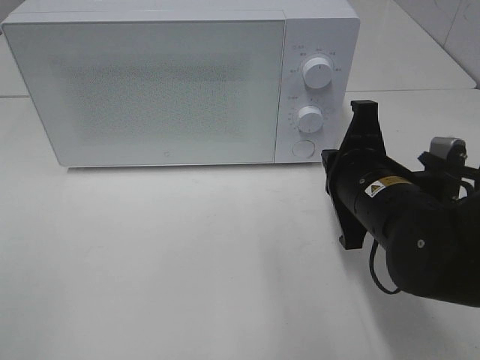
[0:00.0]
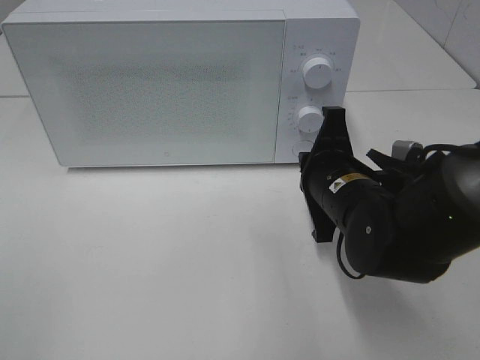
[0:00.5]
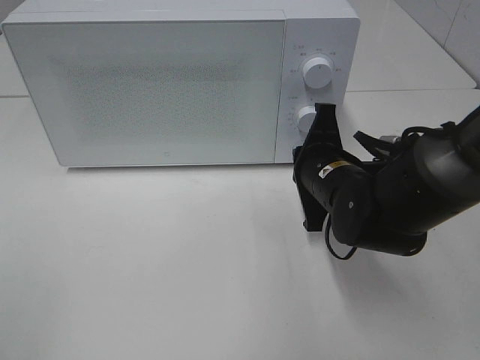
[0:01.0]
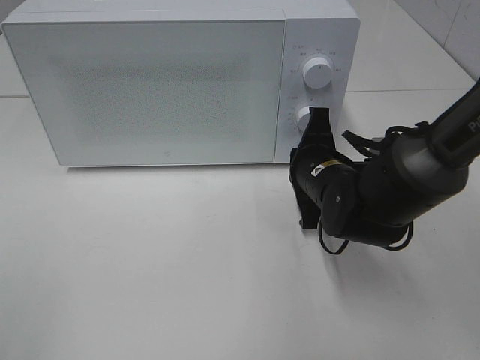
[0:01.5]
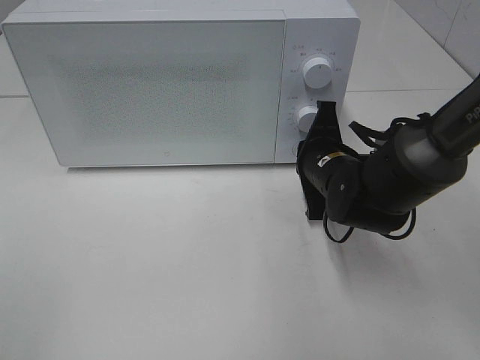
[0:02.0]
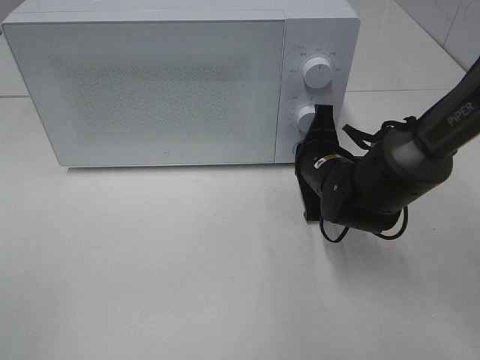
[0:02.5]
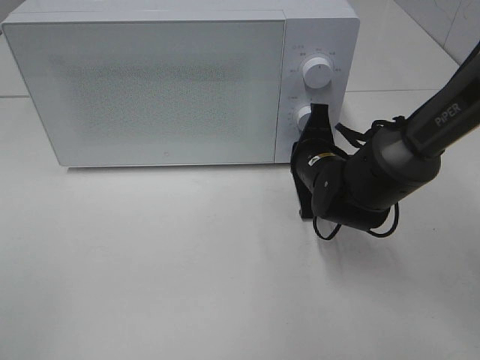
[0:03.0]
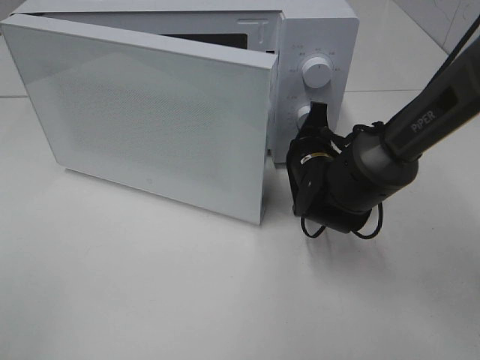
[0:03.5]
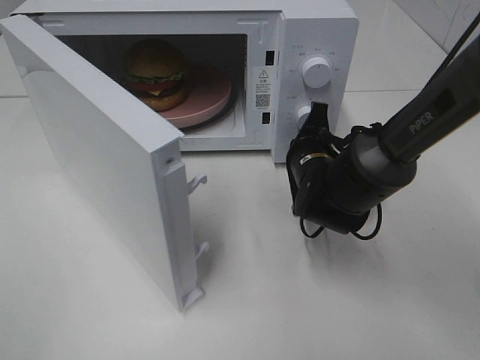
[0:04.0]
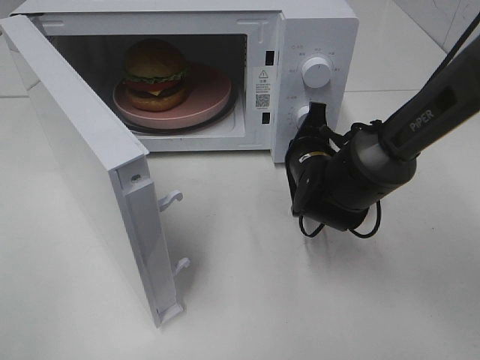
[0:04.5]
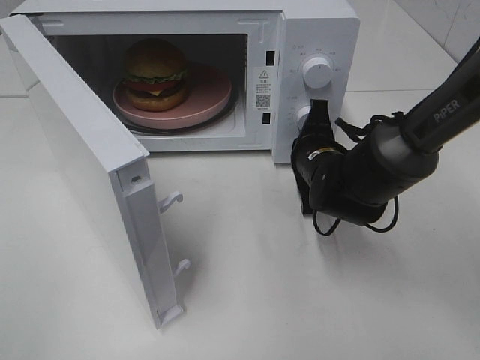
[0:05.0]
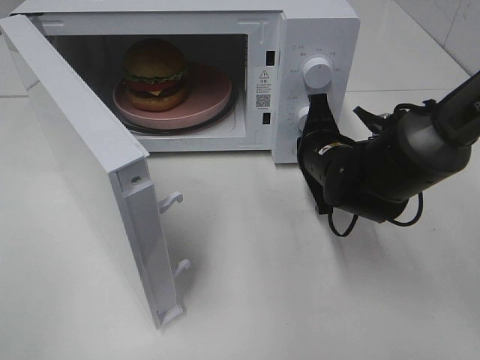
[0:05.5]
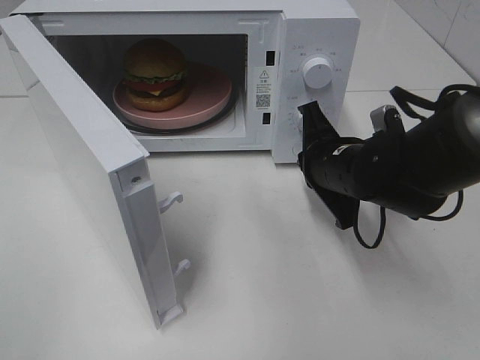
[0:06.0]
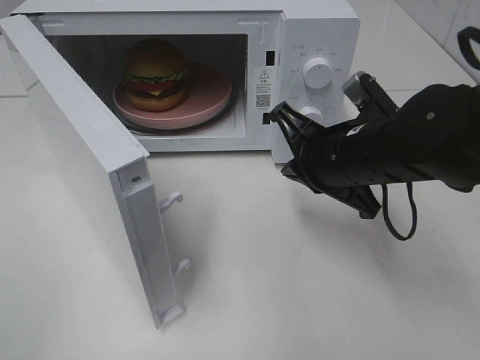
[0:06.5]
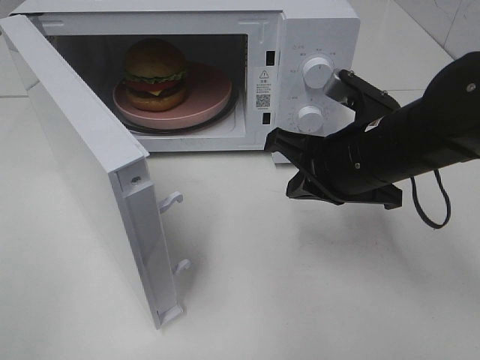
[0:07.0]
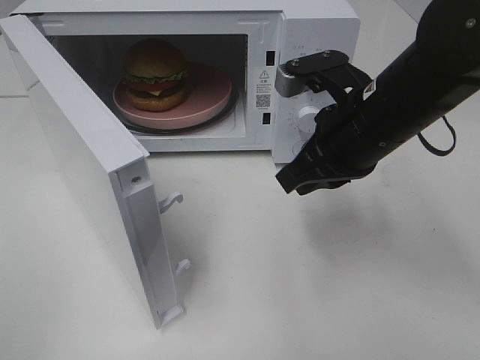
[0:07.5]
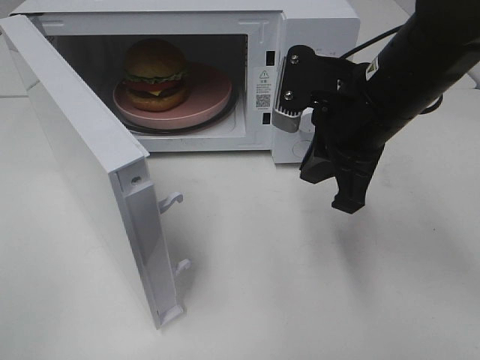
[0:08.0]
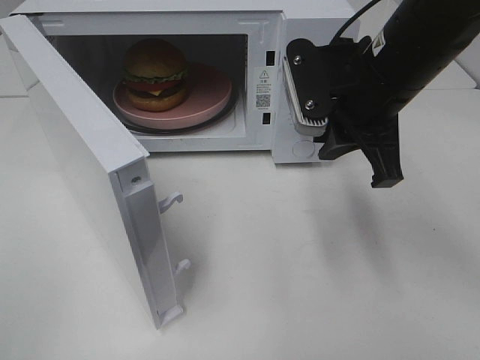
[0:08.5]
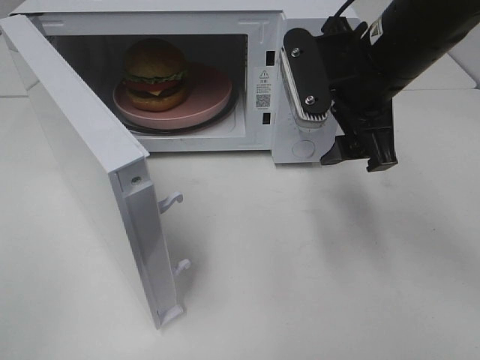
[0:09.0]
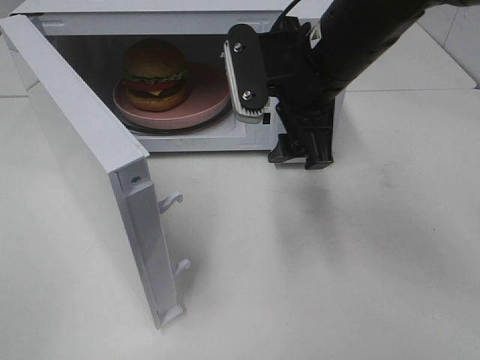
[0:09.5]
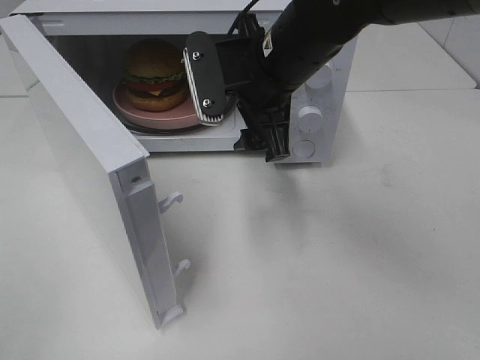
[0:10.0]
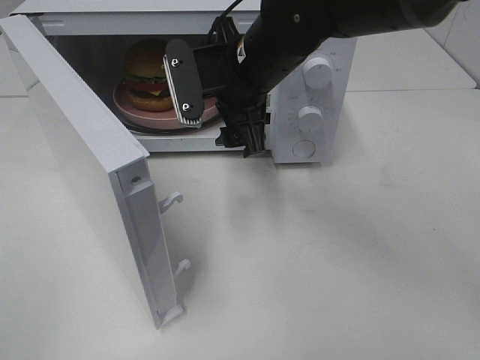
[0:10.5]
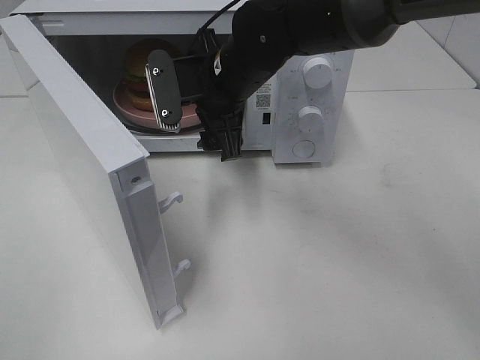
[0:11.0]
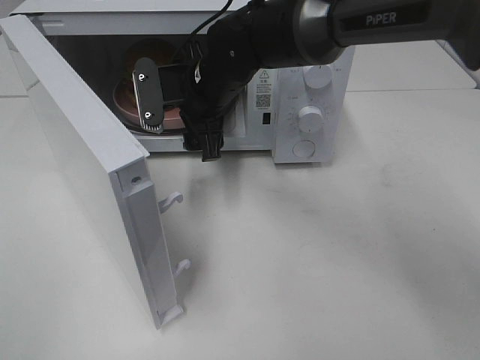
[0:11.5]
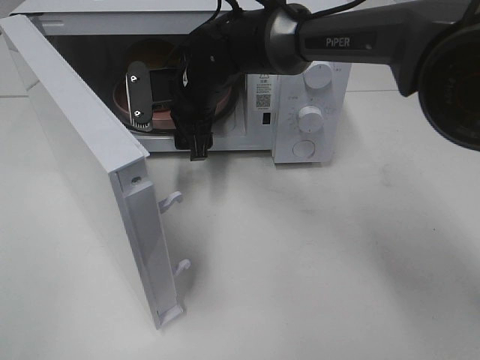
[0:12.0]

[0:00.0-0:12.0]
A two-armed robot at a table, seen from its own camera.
Task of the whole recording: Heat the burger.
Step, 0.0 to 6.0 s: Right hand: press the switch.
0.0 to 2.0 s: The right gripper heads forward and downward, covering some 10 cm.
4.0 to 6.0 s: The right gripper travels backward by approximately 5 cm.
6.0 to 8.0 s: The right gripper shifts some 10 cm upward.
8.0 to 10.0 s: The right gripper is displaced to the left and forward by some 10 cm, and opens.
10.0 to 12.0 s: The right gripper travels forward, to the left and downward by about 15 cm.

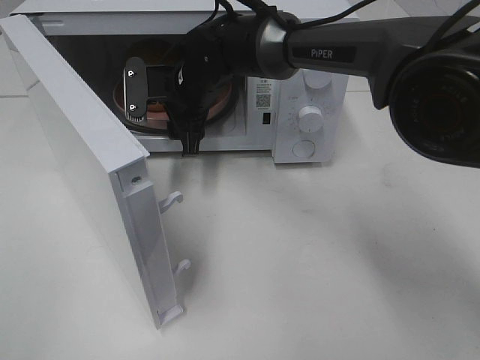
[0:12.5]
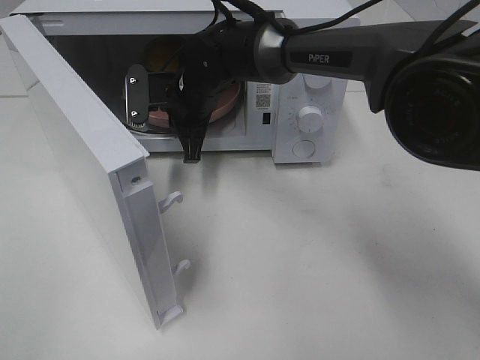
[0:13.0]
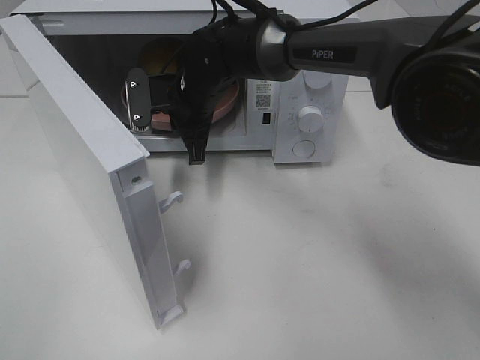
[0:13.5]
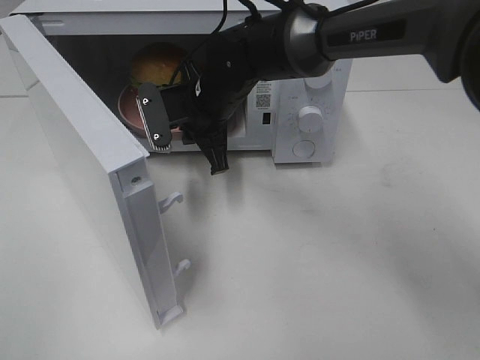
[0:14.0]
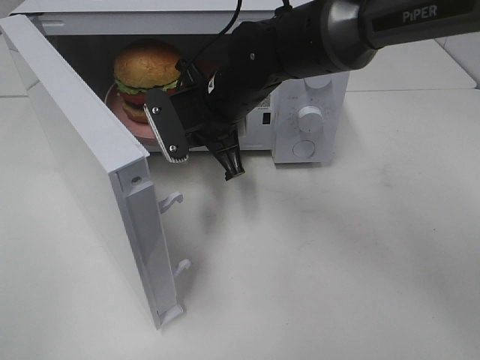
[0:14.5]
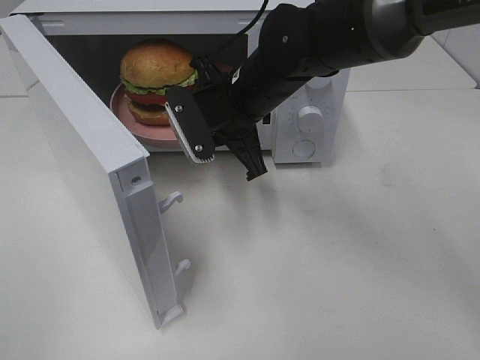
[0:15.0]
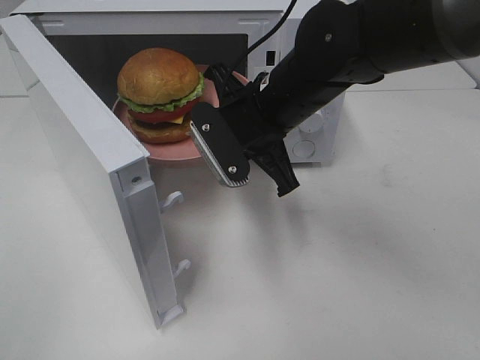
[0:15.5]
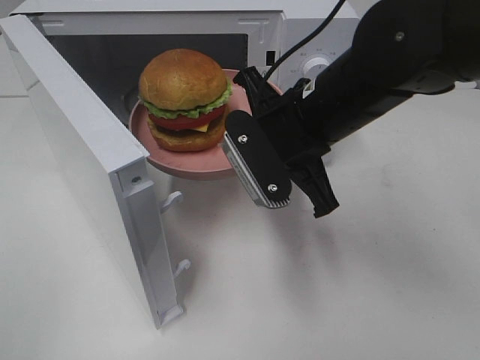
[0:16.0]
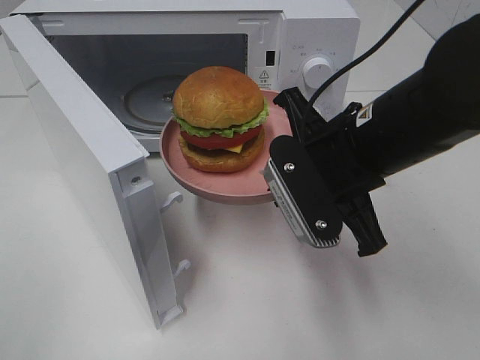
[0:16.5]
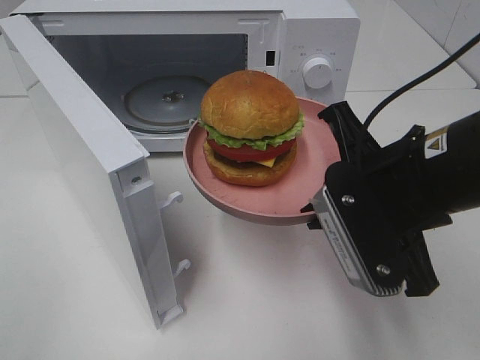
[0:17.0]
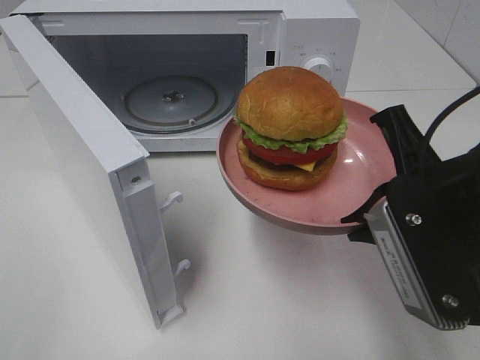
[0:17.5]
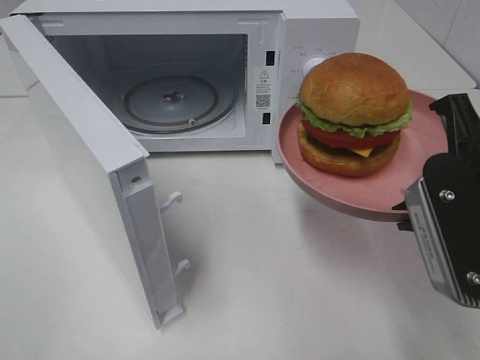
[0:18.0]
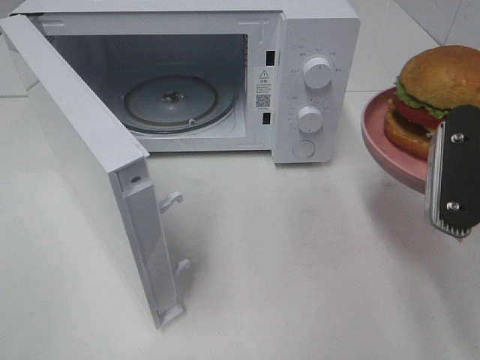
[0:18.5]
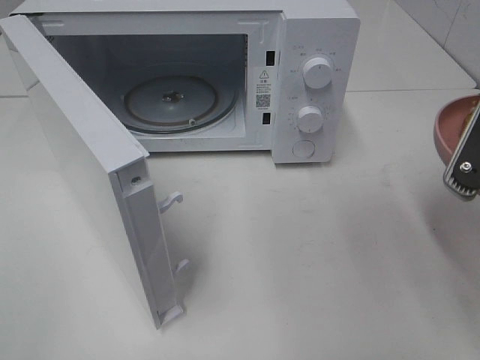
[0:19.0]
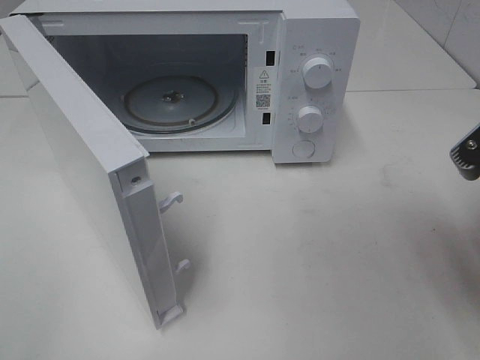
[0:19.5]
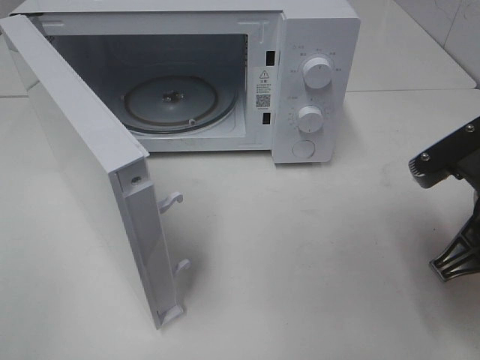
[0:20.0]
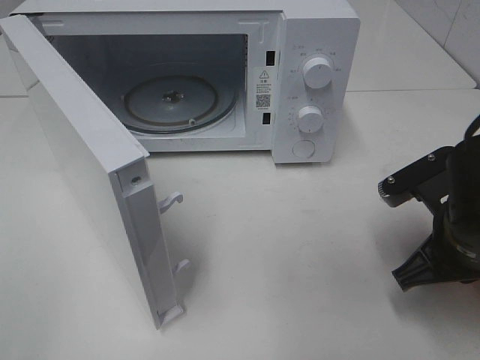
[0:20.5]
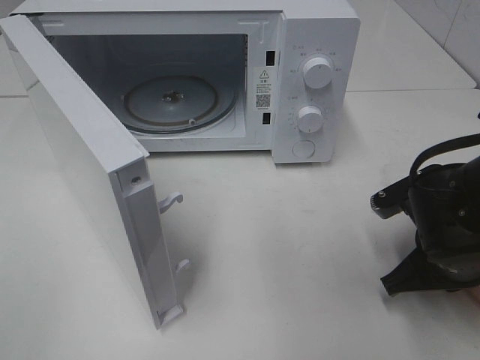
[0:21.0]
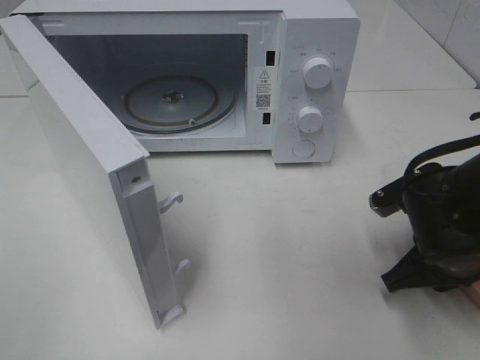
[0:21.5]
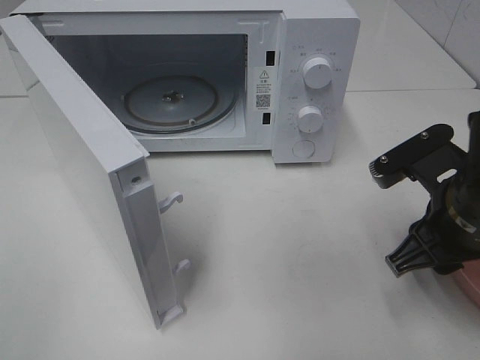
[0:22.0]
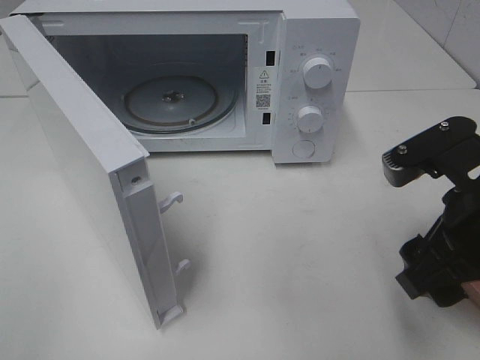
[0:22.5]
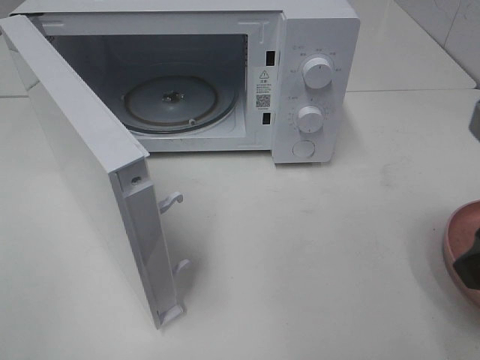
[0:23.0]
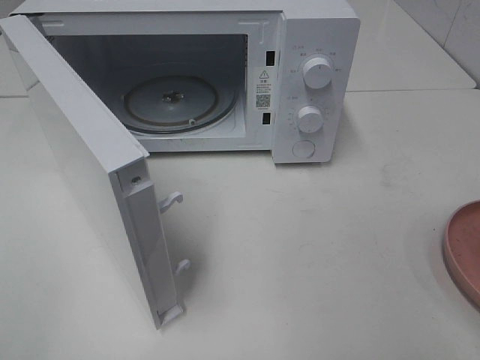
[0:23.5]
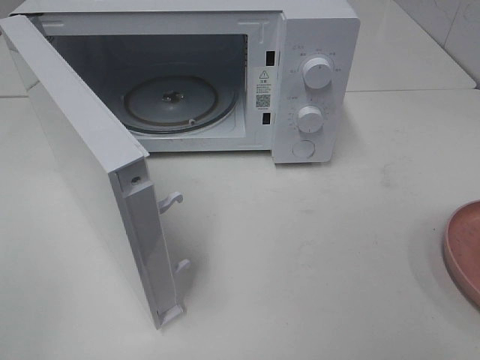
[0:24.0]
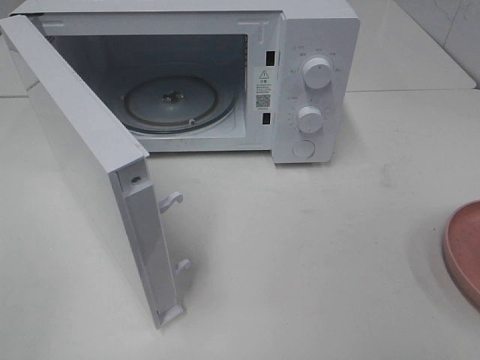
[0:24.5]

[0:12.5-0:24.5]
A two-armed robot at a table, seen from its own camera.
Task of the whole recording: Heat the burger.
Step, 13.5 to 22.0 s: Right hand: place the plate on the table.
12.5 to 14.5 s: The right gripper is displaced backward by approximately 5 cm, and closes up.
14.5 to 16.5 s: The right gripper travels backward and to the right by some 20 cm.
16.5 to 18.5 s: The right gripper travels to the right and backward by approximately 10 cm.
18.5 to 20.5 s: The right gripper is displaced downward by some 10 cm.
20.5 to 22.5 s: The right gripper is displaced upward by approximately 5 cm, and opens.
22.5 to 24.5 s: The right gripper shifts roughly 20 cm backward, to the right and upward.

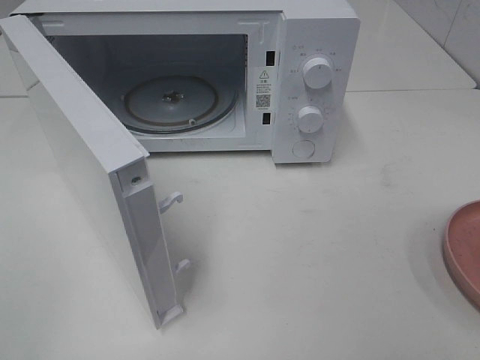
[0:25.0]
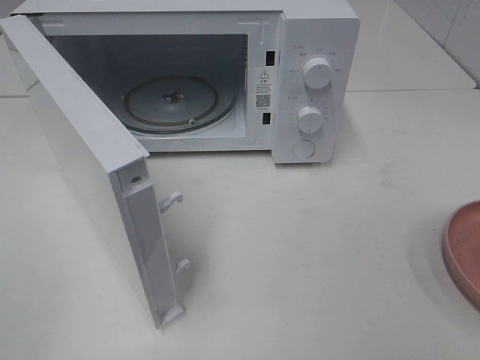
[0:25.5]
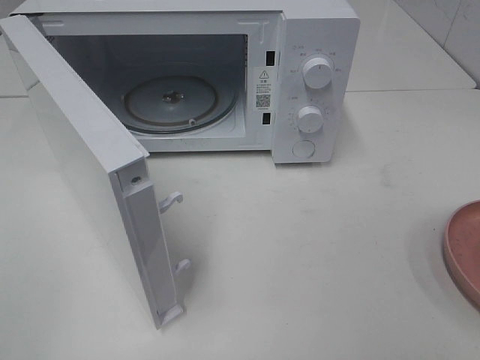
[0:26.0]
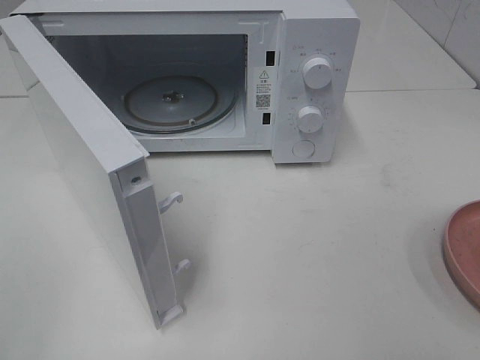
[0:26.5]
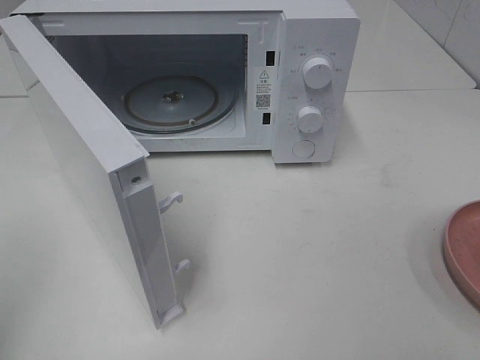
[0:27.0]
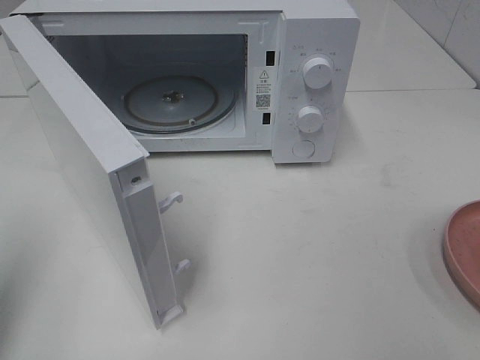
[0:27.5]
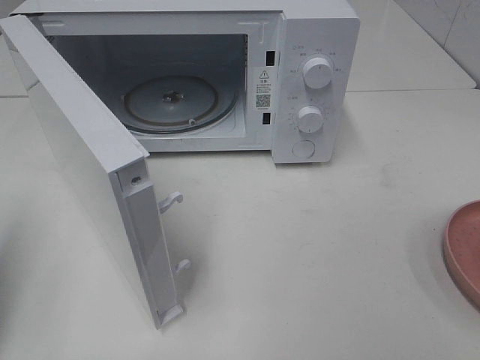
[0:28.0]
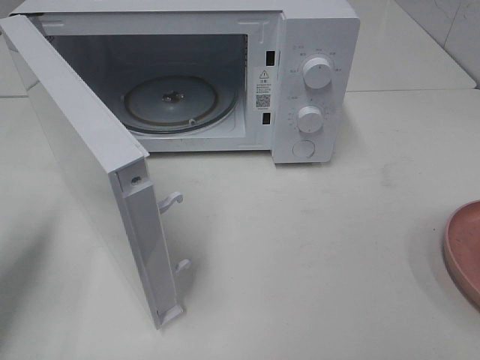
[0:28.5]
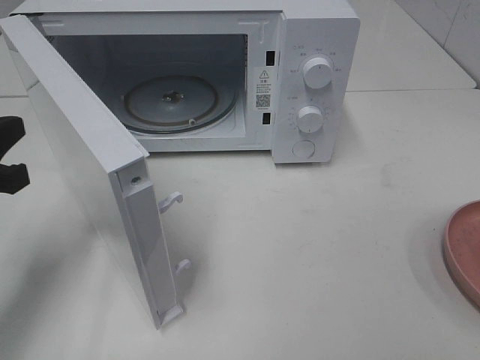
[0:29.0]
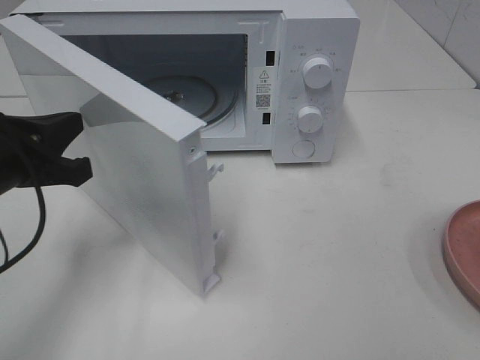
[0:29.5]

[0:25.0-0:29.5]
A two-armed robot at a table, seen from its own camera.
Task of the whole recording: Heat the burger.
27.0 to 29.5 s: The left gripper heads forward, downward and to the right, covering approximately 20 cm.
